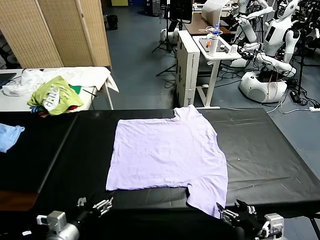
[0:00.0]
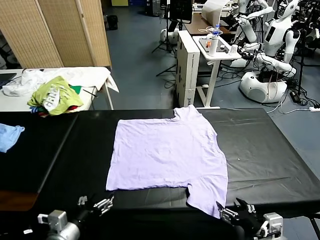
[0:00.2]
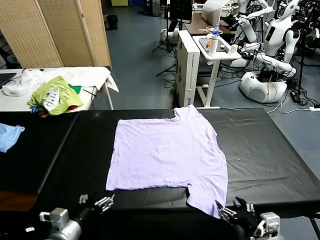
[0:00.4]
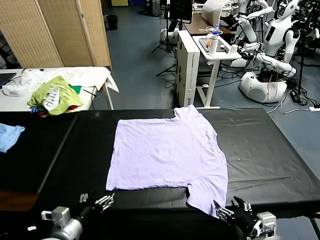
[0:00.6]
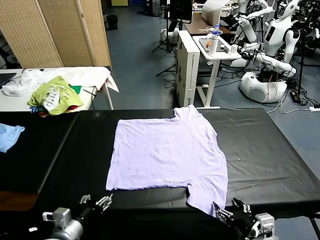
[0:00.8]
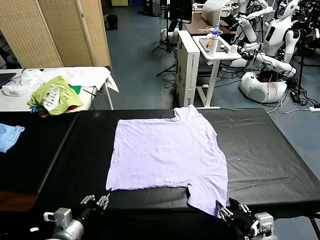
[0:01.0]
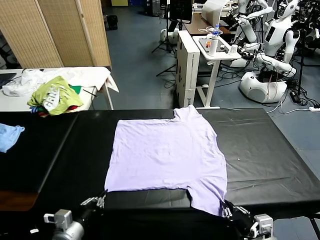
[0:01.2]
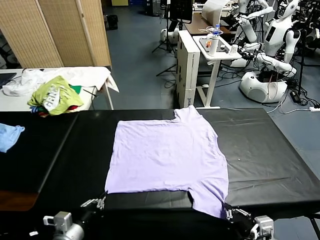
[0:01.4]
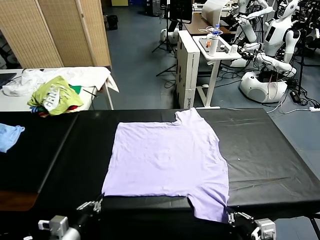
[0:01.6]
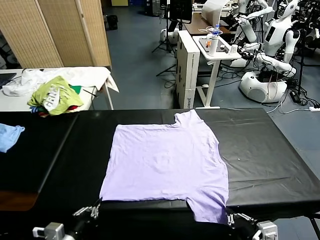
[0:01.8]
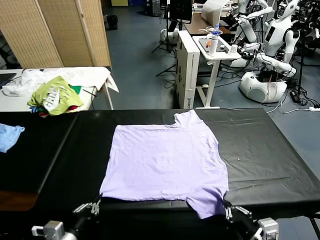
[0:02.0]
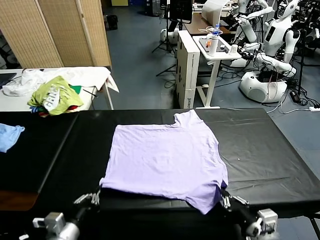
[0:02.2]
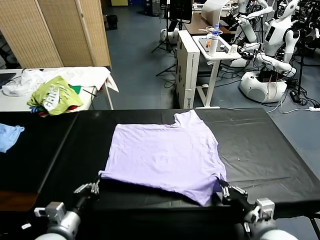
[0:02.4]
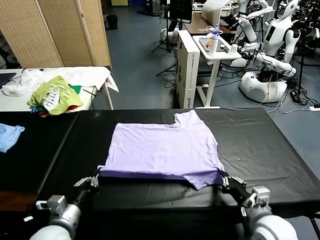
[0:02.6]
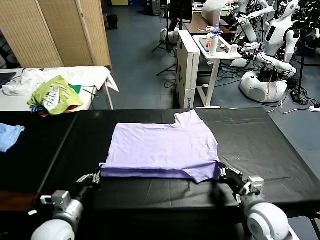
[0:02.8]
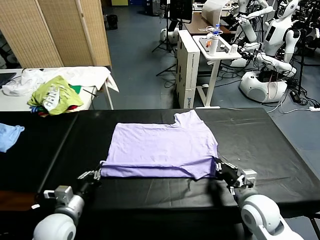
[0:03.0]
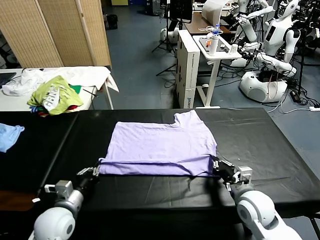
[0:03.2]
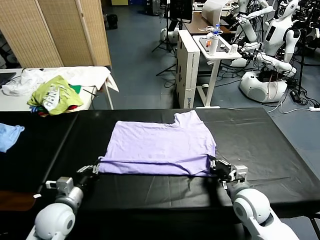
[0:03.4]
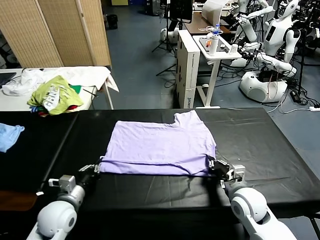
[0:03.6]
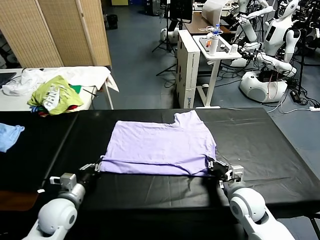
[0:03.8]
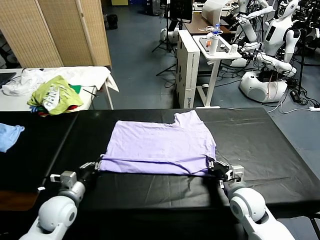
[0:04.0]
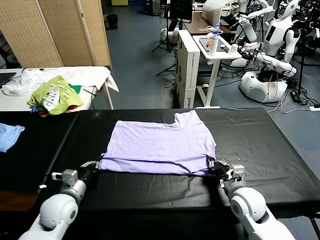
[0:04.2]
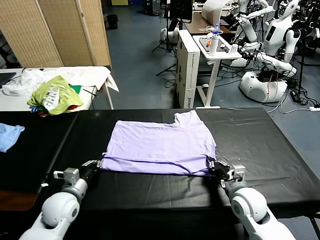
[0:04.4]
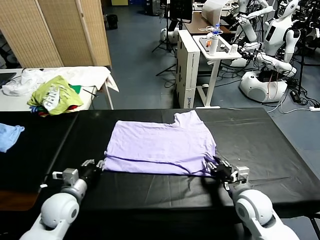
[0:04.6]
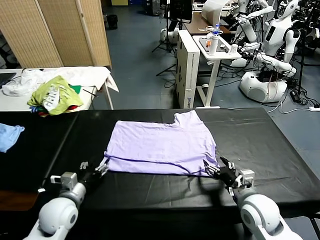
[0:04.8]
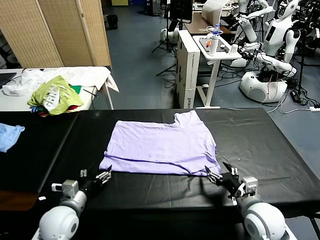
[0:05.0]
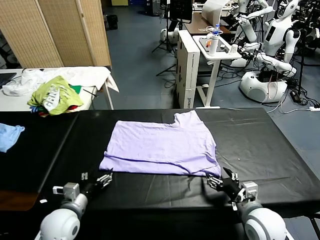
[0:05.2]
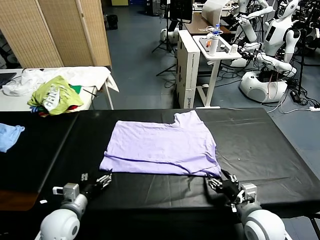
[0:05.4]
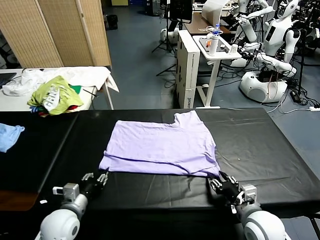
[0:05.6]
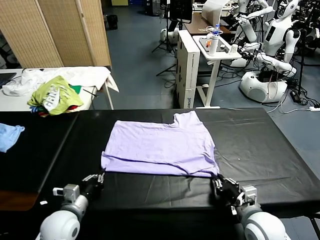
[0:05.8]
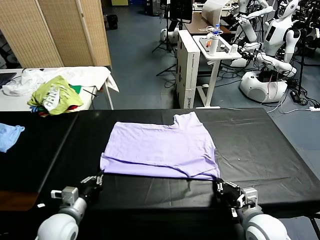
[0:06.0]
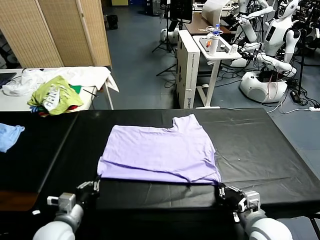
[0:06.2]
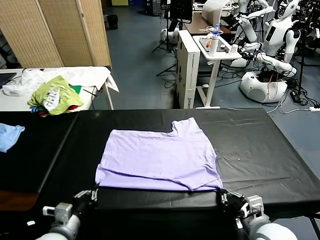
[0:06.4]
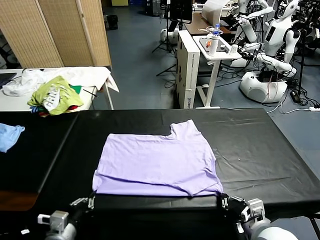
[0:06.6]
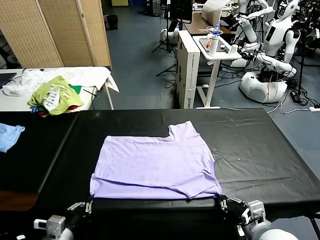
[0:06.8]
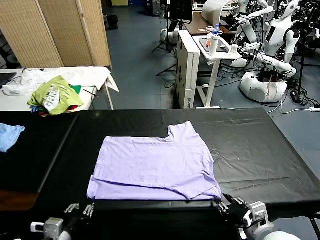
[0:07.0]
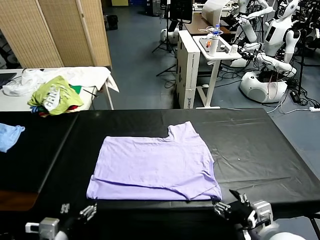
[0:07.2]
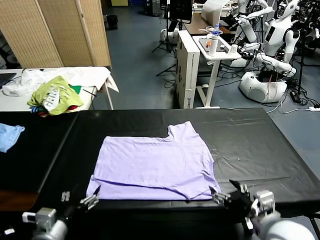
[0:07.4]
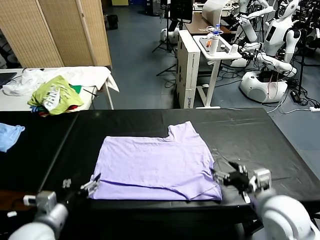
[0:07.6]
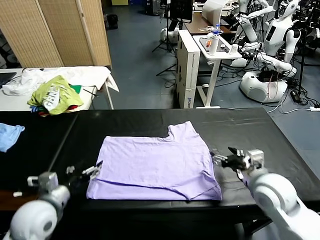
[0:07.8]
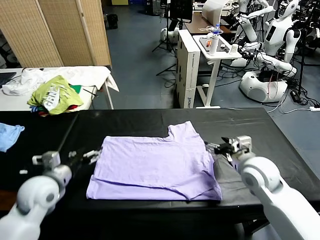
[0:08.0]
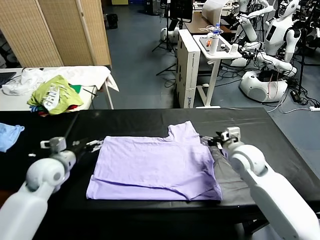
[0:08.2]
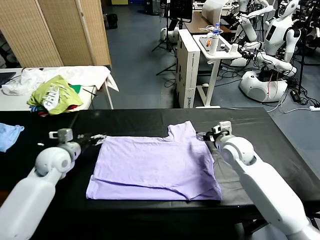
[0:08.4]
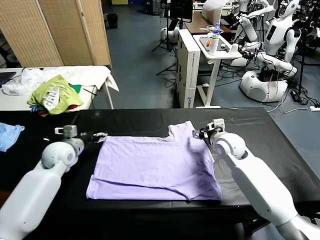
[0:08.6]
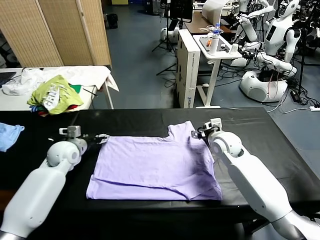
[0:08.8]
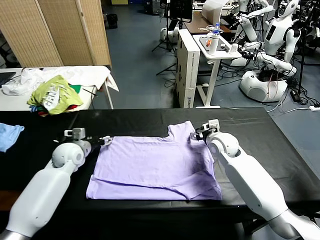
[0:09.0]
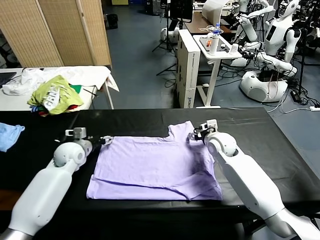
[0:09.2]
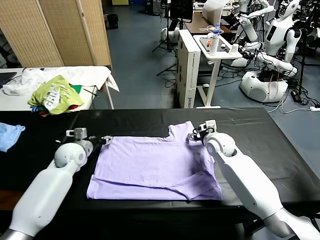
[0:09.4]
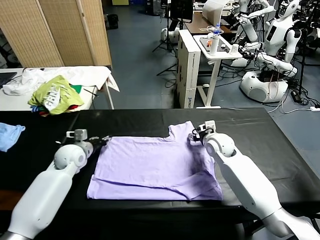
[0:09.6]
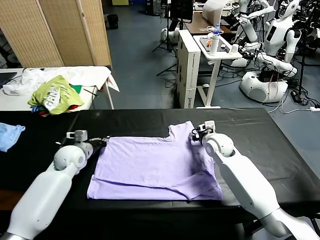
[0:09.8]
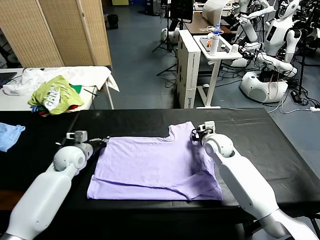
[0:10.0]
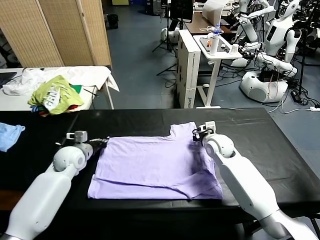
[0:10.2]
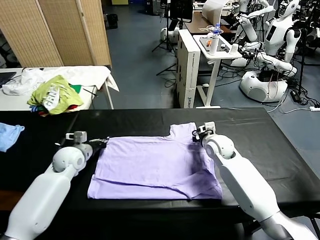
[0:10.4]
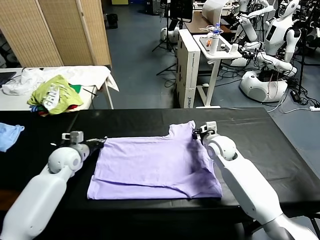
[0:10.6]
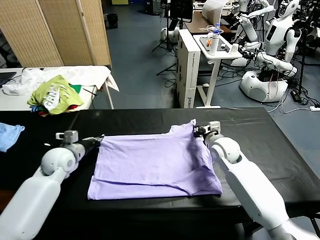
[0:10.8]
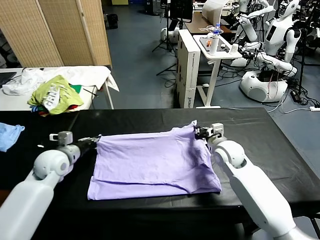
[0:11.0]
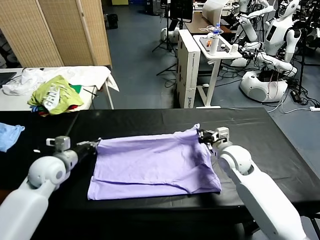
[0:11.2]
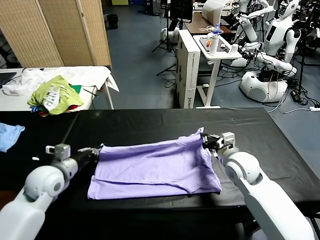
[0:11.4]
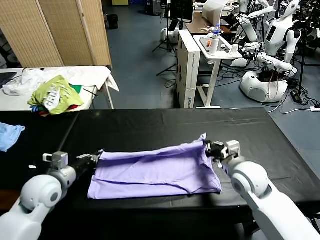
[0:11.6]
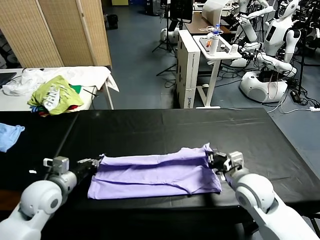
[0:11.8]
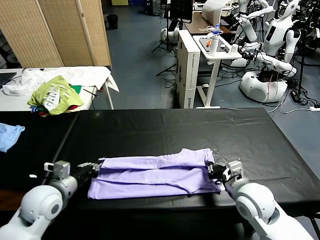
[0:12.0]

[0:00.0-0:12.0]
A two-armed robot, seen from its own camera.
Task of the whole recording: fold and organize the clothes.
Step, 0:00.0 to 0:01.4: use both grippers simultaneously to clamp the lower edge of the clothing fabric.
Step, 0:01.6 to 0:04.6: use both grippers to drag the lower edge of the fabric forward and fold it over the upper edge.
Step, 0:05.0 to 0:07.2: Drag the clothes downward with both gripper.
Step, 0:07.4 to 0:10.4: use both grippers simultaneously to clamp the upper edge of the clothing fabric.
0:01.6 to 0:03.0: The left gripper is displaced forward by roughly 10 cm, while the right gripper goes some 15 cm forward.
0:03.0 to 0:04.4: The left gripper shifts some 5 cm forward, while the right gripper opens up.
0:04.4 to 0:06.0: Both grippers travel together backward, approximately 10 cm. The right gripper closes. The left gripper opens, then closes once more.
0:06.0 to 0:07.6: The left gripper shifts roughly 10 cm upward, goes backward and returns, about 10 cm each way, and opens. The right gripper moves forward and upward, about 10 cm, and opens.
0:07.6 to 0:09.0: Both grippers travel together forward, some 25 cm.
0:09.0 to 0:10.4: The right gripper closes its fingers; the left gripper closes up.
0:10.4 to 0:12.0: The grippers both shift backward by roughly 20 cm.

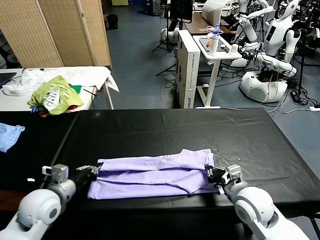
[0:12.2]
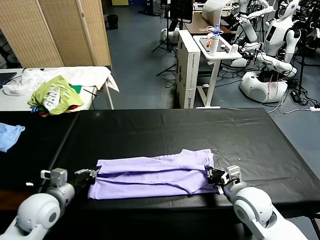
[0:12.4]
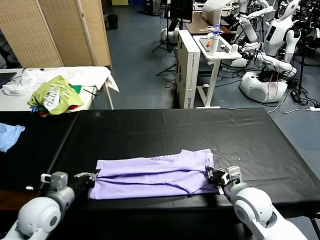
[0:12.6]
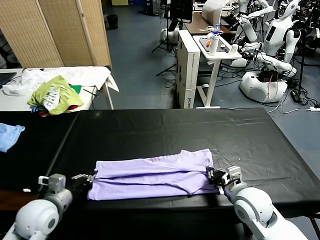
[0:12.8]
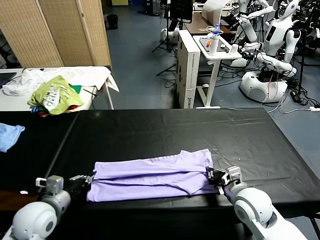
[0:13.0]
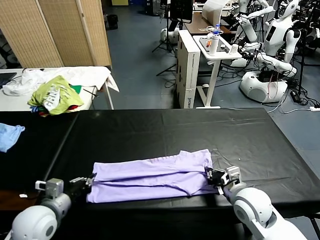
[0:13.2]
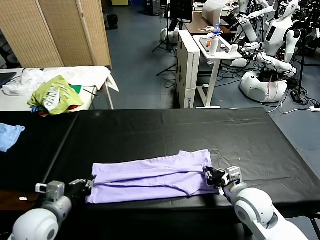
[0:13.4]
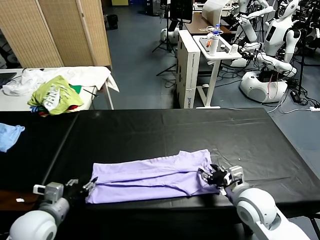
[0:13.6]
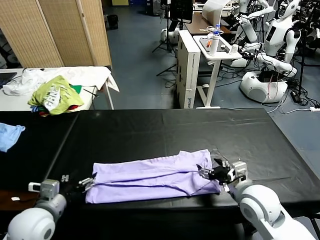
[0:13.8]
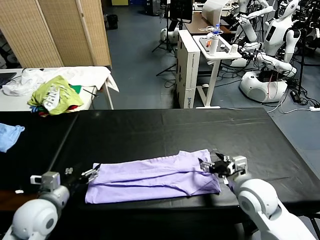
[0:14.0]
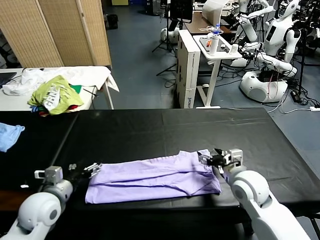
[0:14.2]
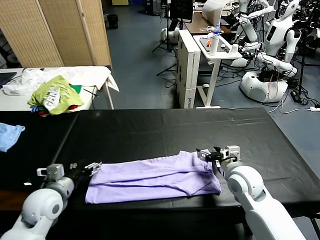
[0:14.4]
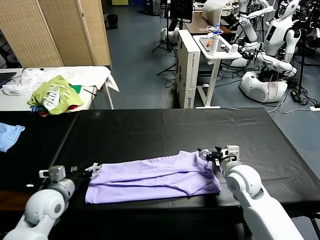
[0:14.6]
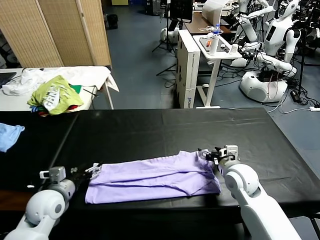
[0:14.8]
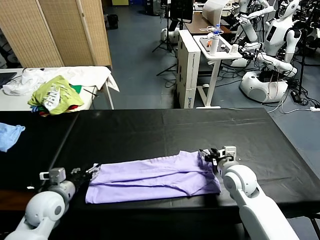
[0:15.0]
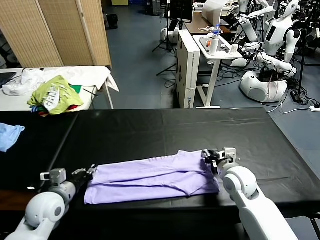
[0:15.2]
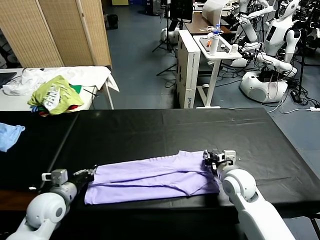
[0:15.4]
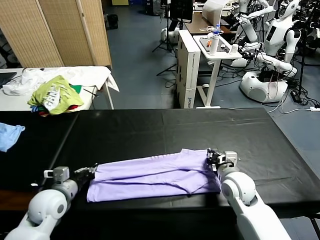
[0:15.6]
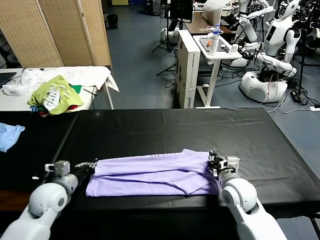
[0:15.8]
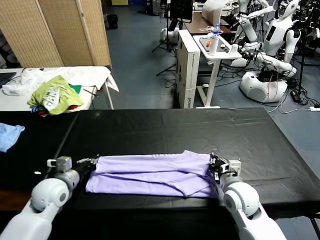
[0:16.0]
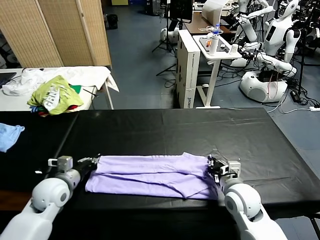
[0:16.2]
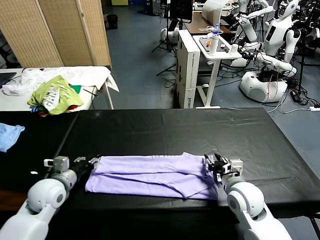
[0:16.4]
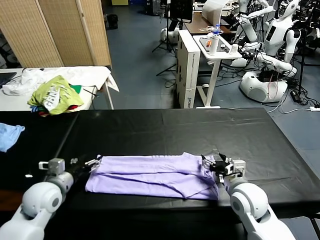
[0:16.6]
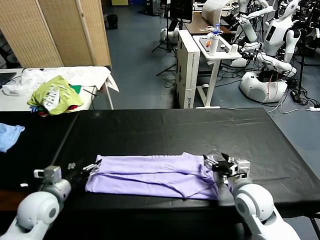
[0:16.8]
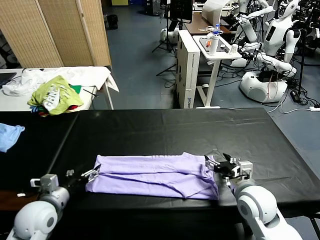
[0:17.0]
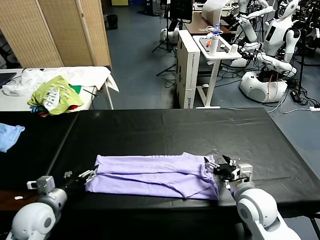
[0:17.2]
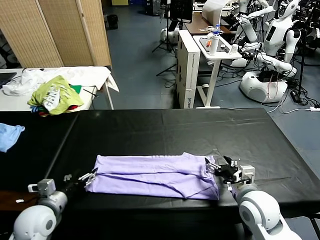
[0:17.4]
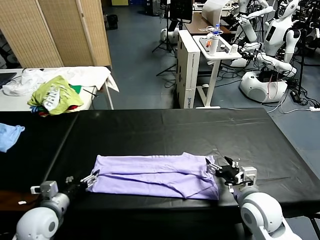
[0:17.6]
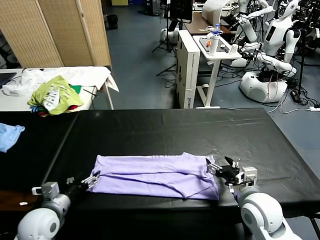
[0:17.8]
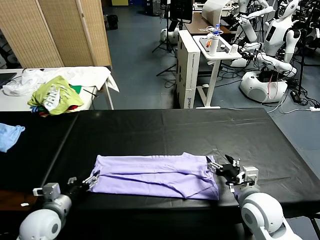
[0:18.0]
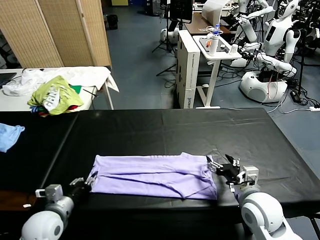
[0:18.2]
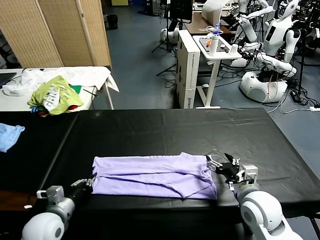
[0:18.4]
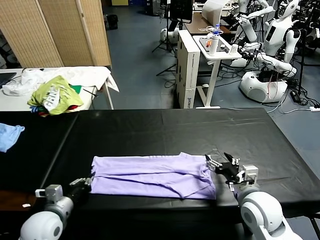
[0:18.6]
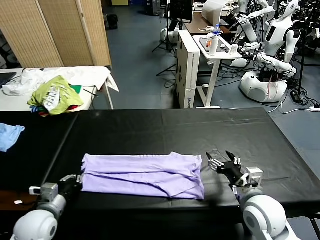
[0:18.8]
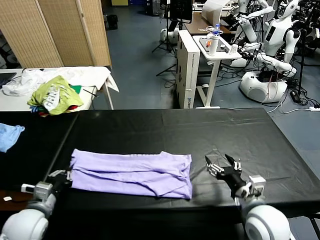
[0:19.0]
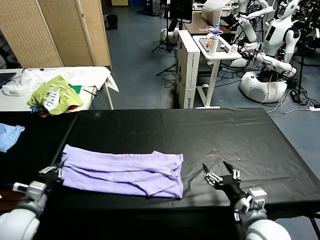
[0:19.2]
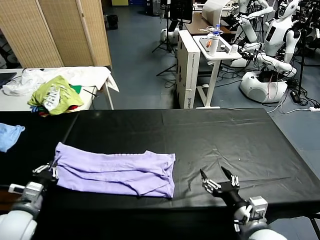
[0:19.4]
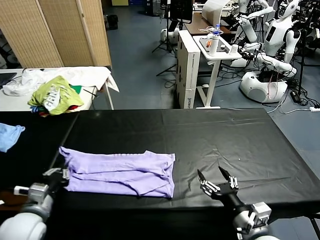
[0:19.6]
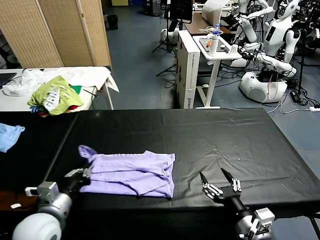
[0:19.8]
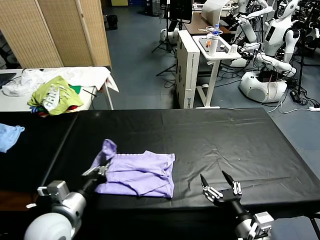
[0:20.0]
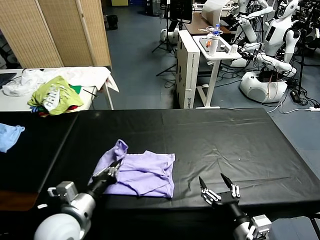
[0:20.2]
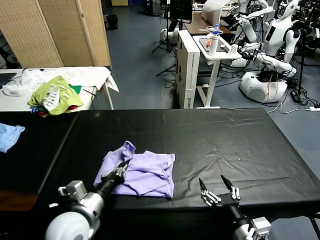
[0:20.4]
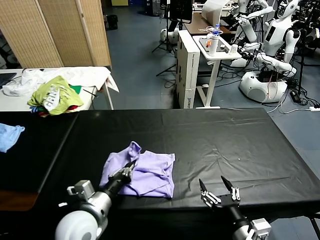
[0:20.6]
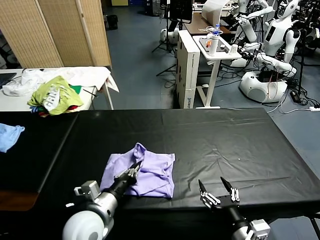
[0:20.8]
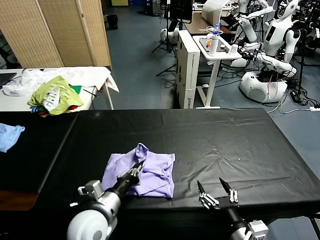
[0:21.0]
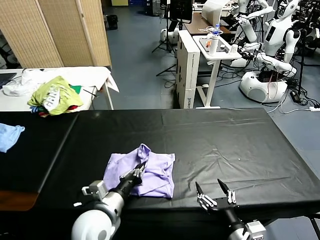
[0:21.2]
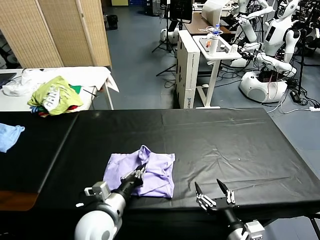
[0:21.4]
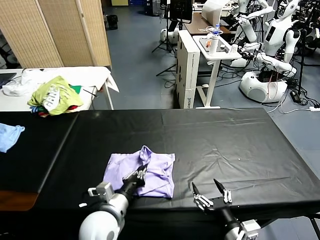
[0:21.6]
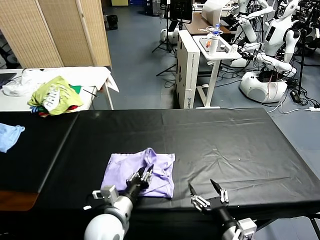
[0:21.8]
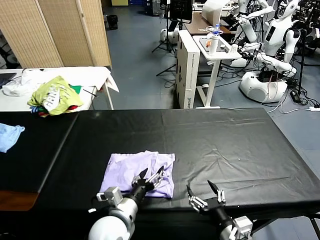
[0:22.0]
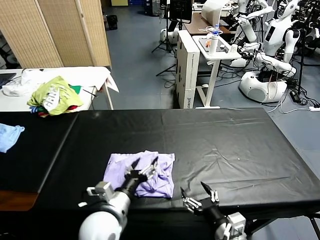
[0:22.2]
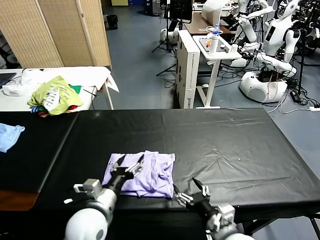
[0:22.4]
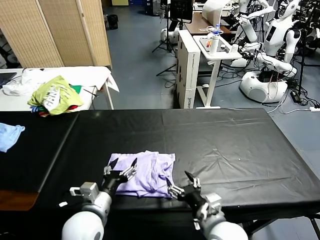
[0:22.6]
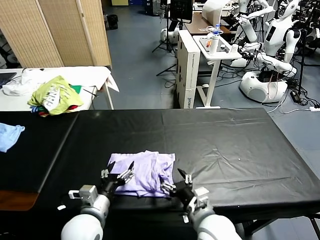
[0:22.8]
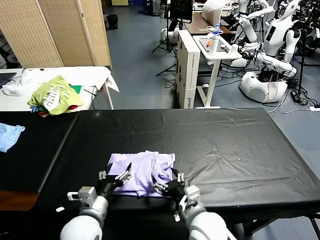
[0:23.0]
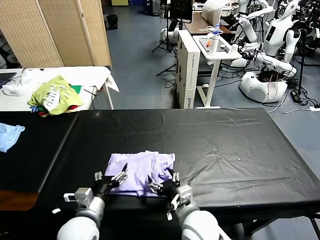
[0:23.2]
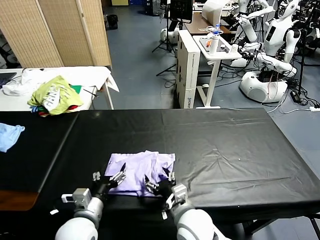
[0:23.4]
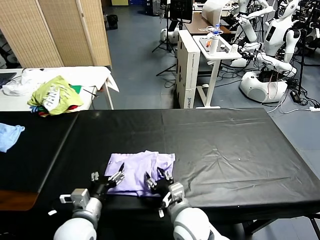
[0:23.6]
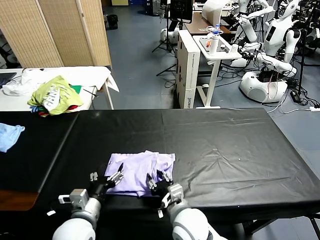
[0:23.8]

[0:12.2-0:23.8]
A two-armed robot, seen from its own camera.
Task of the whole recording: fold and organize the clothes.
Step, 0:13.8 to 0:18.4: use the left gripper to clamp the left edge of the fabric.
Step, 0:18.6 to 0:22.0: use the left gripper to drag the left edge of the fabric to the left and folds it over the right edge.
0:12.2 to 0:13.6: The right gripper opens up. Meanwhile the left gripper moves backward, roughly 5 cm, and opens up.
0:13.6 to 0:15.0: Both grippers move forward, roughly 10 cm. The right gripper closes.
0:15.0 to 0:16.6: The left gripper closes, then reopens; the right gripper is displaced backward by some 5 cm, and opens up.
0:16.6 to 0:18.0: The left gripper goes roughly 5 cm backward.
0:18.0 to 0:19.4: The right gripper moves backward, some 10 cm; the left gripper ends up about 5 cm from where it was, and closes.
0:19.4 to 0:21.0: The left gripper travels to the right by roughly 20 cm.
0:21.0 to 0:22.4: The right gripper goes approximately 5 cm forward. The left gripper opens up.
0:22.4 to 0:23.8: The right gripper heads to the left and forward, covering approximately 10 cm, and closes its fingers.
